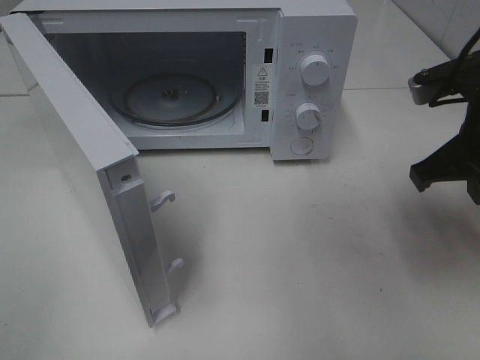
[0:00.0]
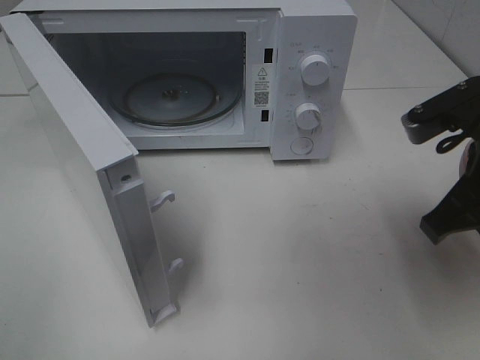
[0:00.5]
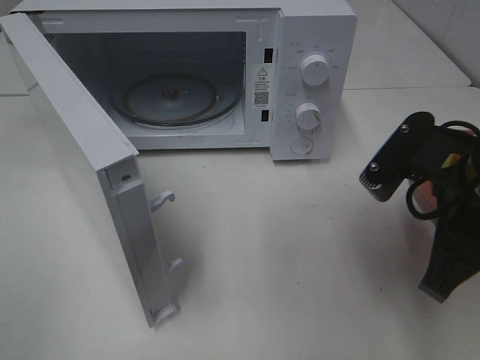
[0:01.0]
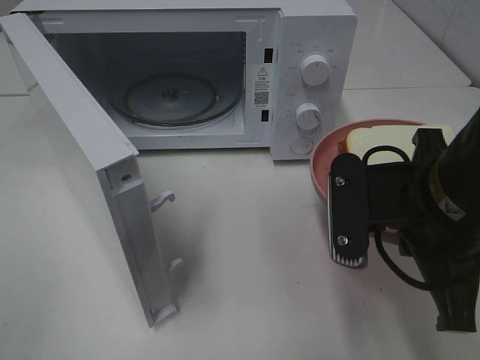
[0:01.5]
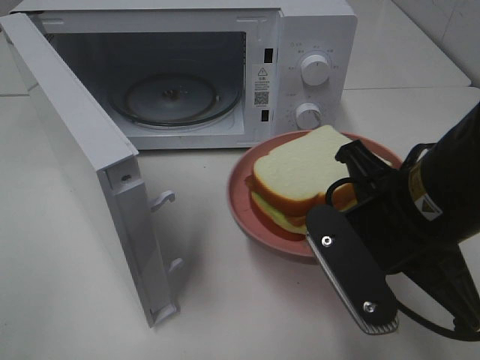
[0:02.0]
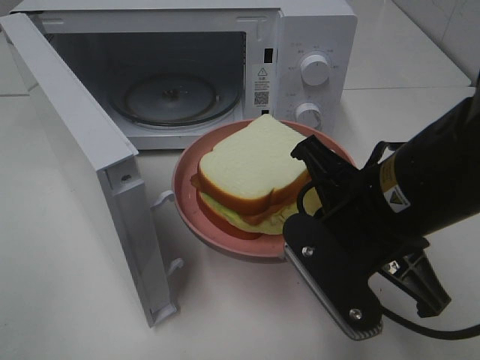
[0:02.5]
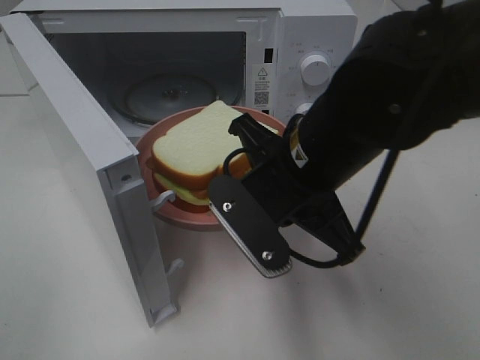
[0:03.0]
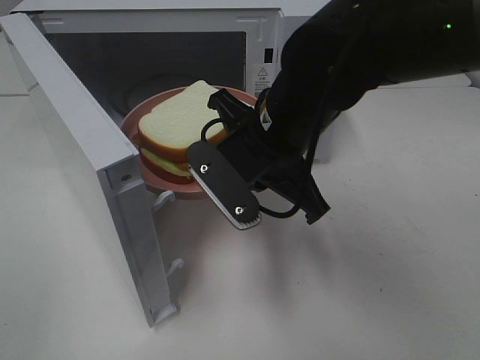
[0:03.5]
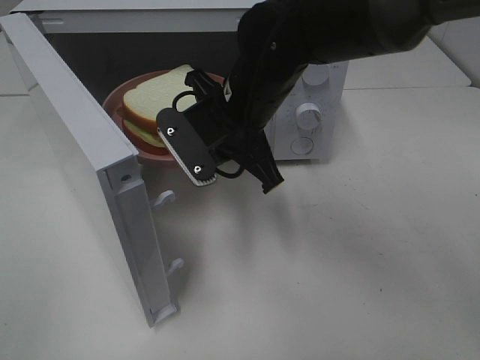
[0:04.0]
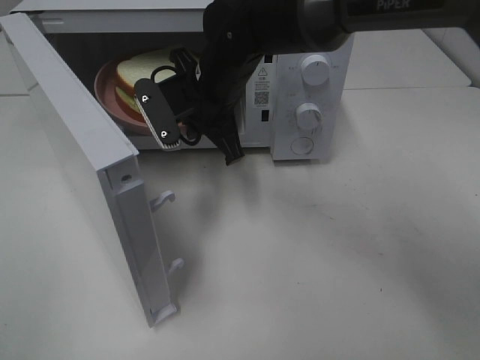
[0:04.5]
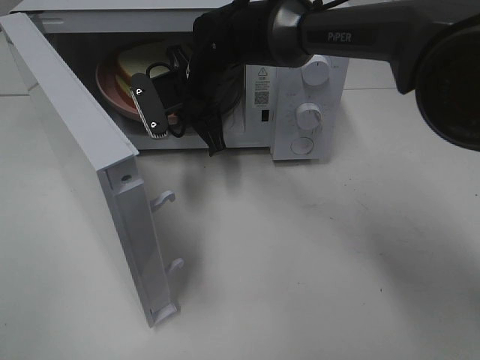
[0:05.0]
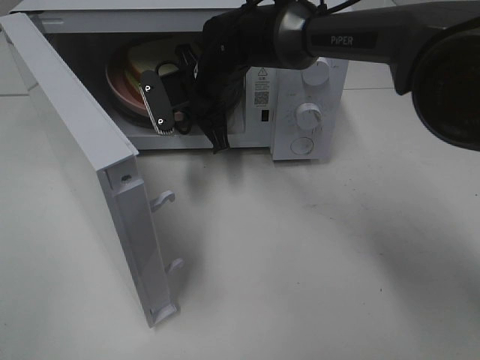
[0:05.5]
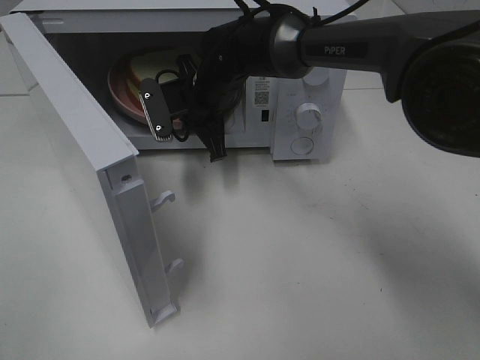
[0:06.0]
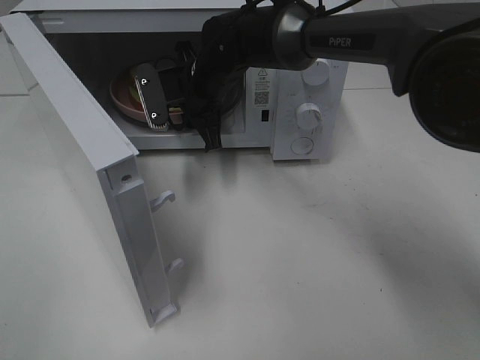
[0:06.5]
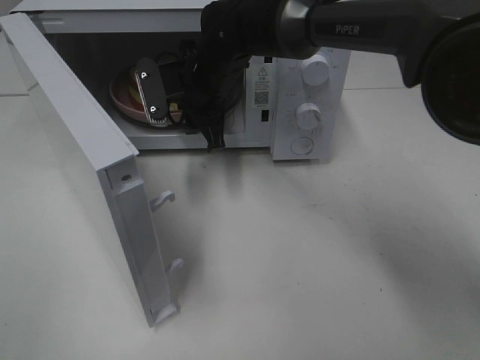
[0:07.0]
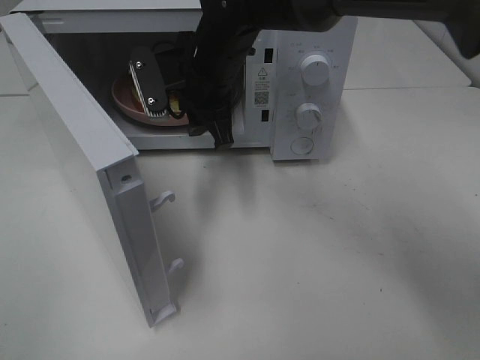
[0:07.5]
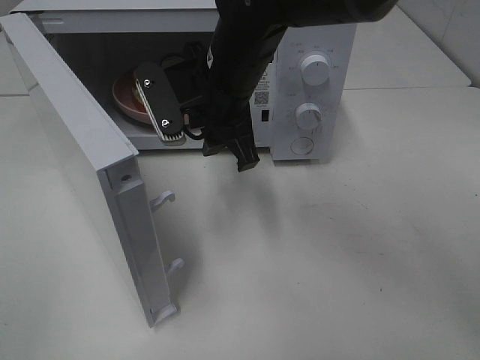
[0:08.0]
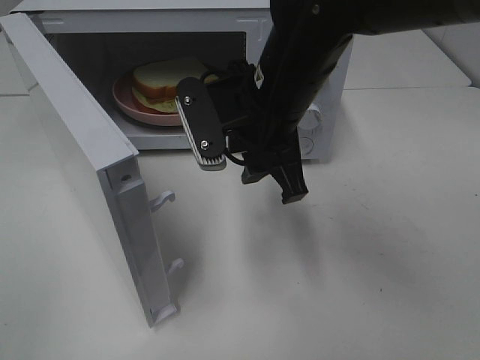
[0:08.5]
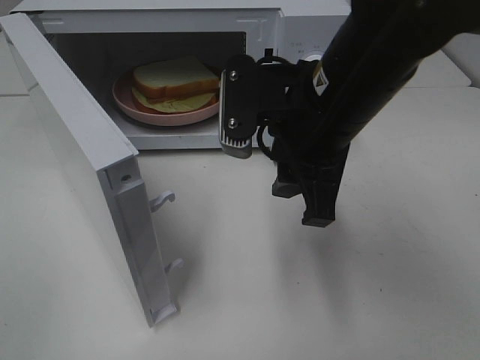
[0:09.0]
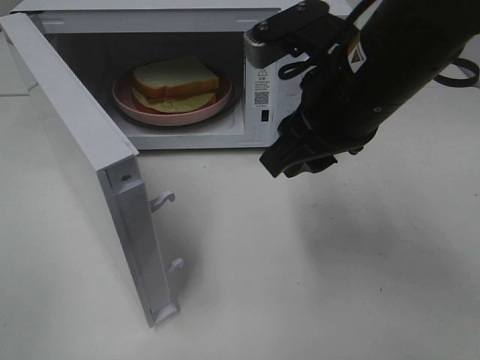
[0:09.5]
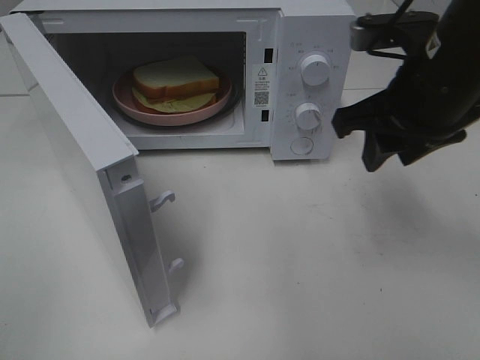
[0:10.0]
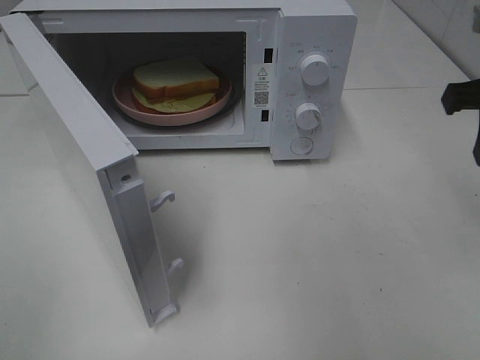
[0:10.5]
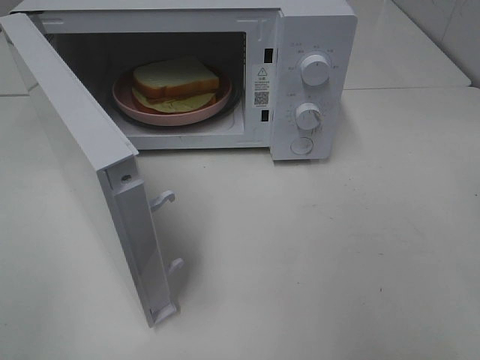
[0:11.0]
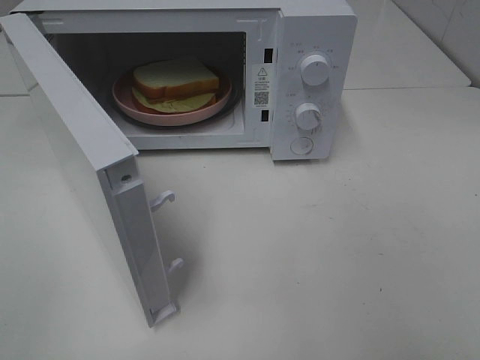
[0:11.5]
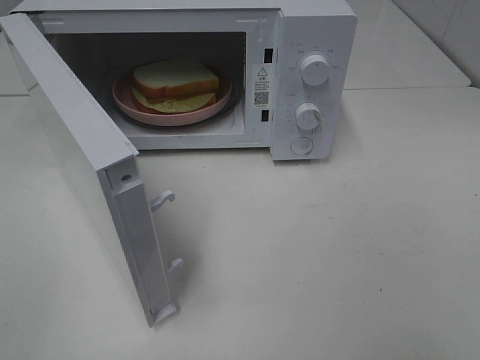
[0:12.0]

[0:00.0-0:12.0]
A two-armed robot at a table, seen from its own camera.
Task of the whole recording: Heat Sandwich.
Step, 0:00.0 to 0:07.0: Right hand: place the plate in the microwave.
0:00.0 to 0:02.0: The right gripper is displaced to the left and backward by some 15 cm.
0:02.0 to 0:04.0: The right gripper shifts roughly 20 cm forward and to the left.
0:04.0 to 0:06.0: The right gripper goes some 10 cm forward.
0:06.0 to 0:08.0: The right gripper goes about 10 cm backward and upward, and opens.
0:08.0 to 0:10.0: The right gripper heads to the right, covering about 20 cm.
0:10.0 to 0:12.0: The right gripper is displaced backward and to the right by some 30 cm.

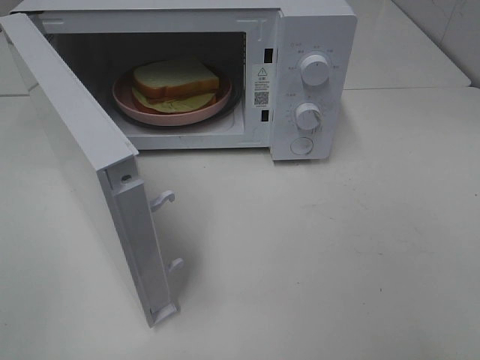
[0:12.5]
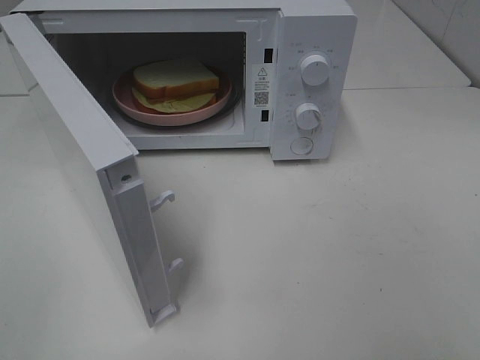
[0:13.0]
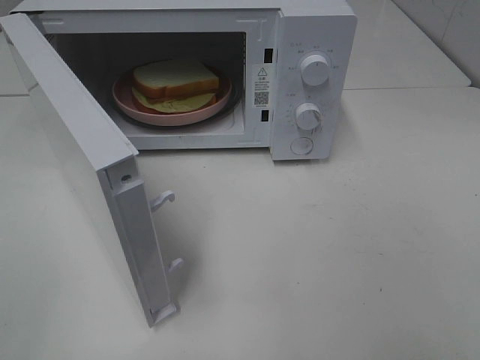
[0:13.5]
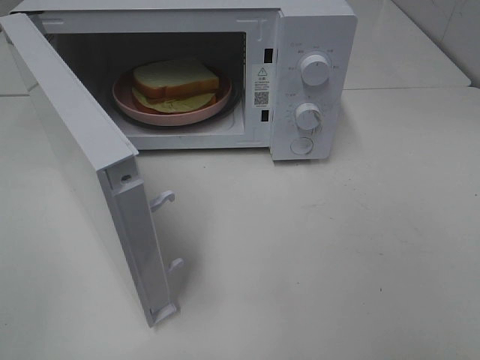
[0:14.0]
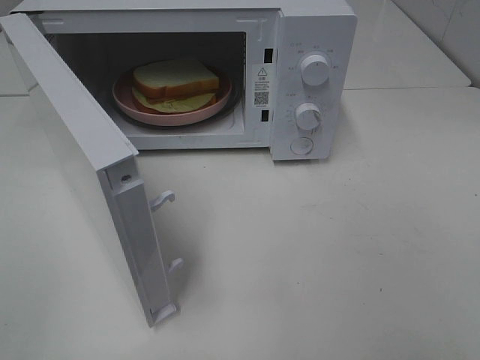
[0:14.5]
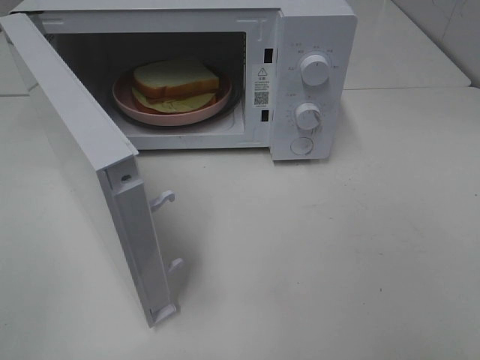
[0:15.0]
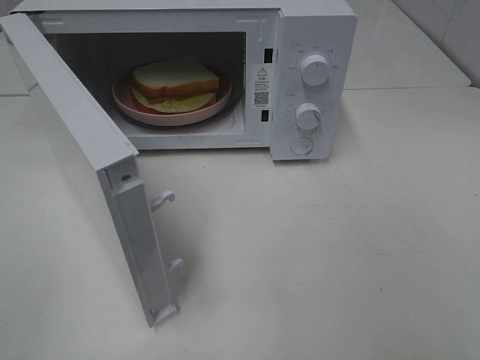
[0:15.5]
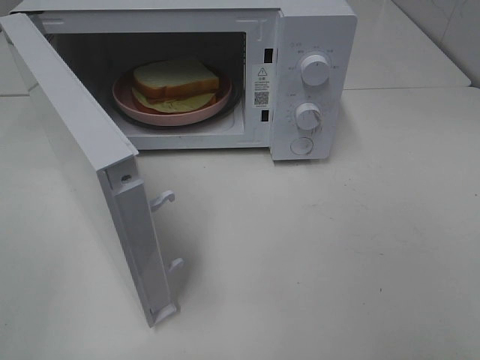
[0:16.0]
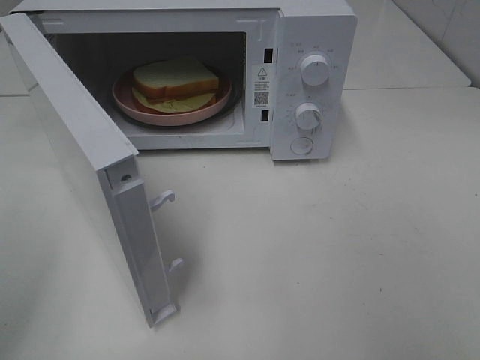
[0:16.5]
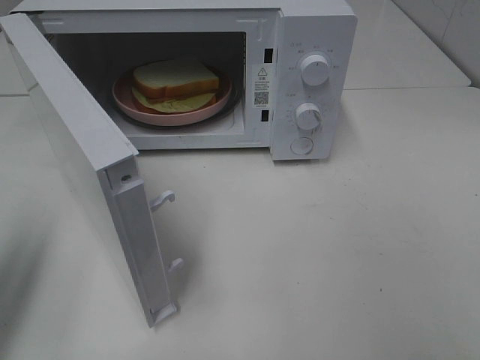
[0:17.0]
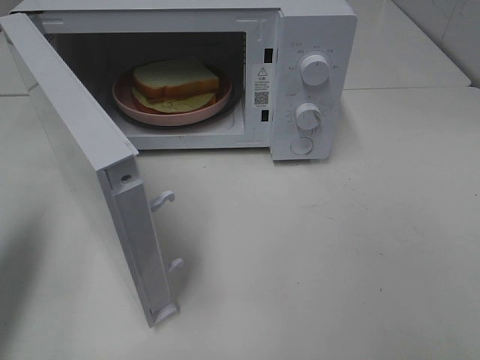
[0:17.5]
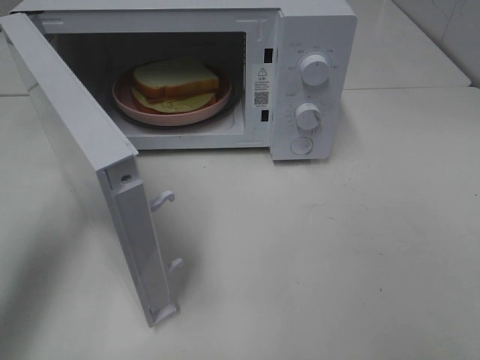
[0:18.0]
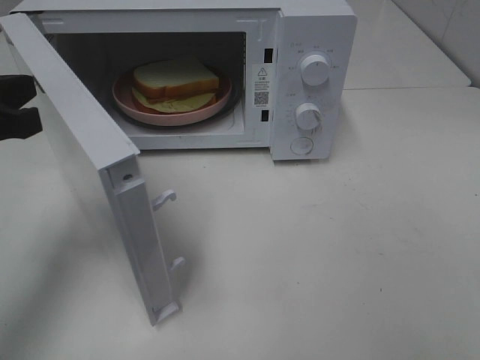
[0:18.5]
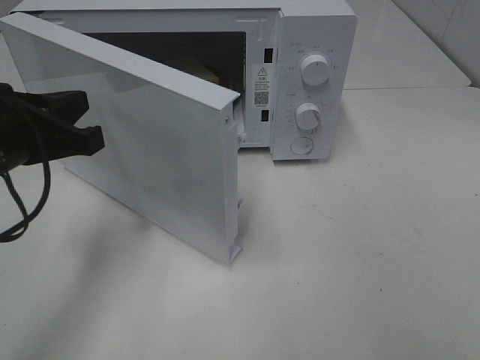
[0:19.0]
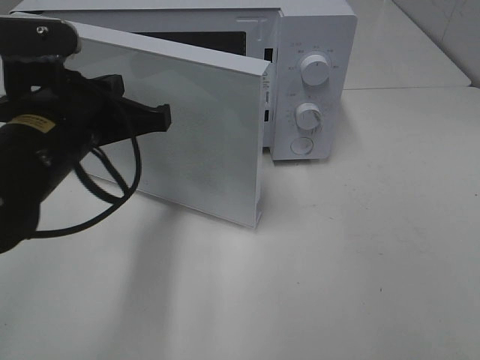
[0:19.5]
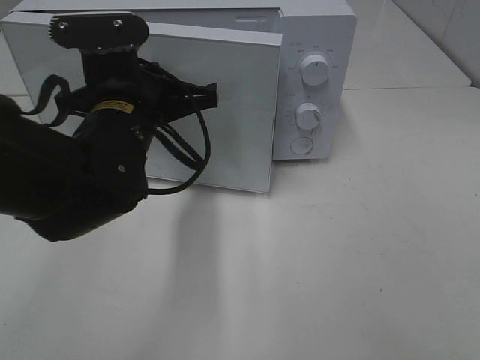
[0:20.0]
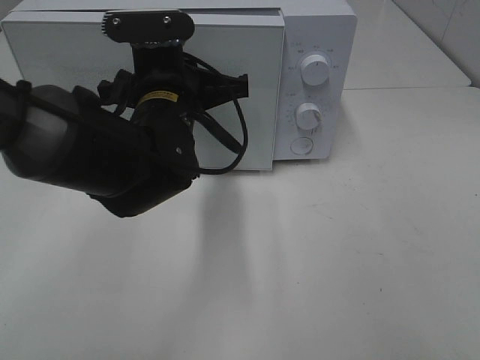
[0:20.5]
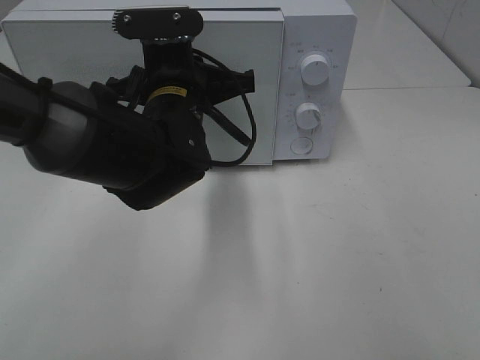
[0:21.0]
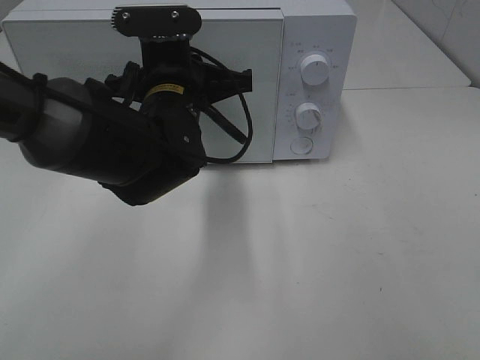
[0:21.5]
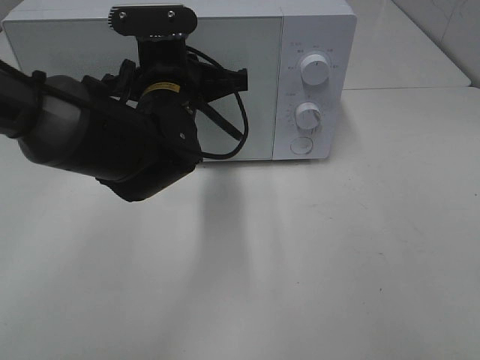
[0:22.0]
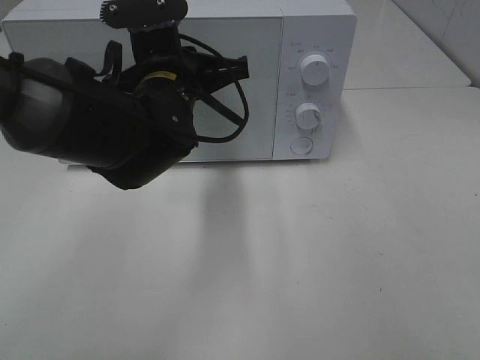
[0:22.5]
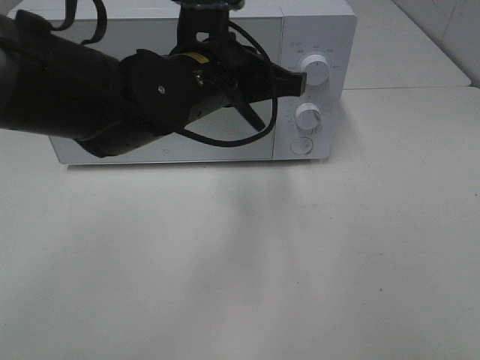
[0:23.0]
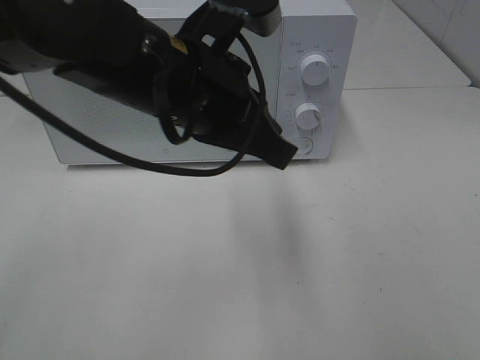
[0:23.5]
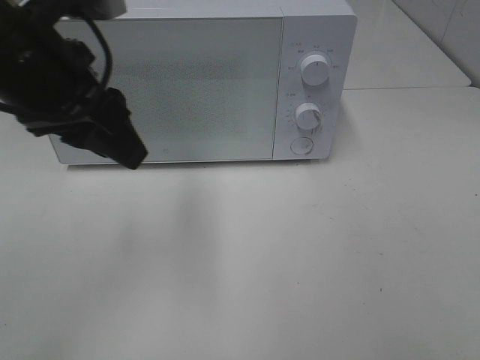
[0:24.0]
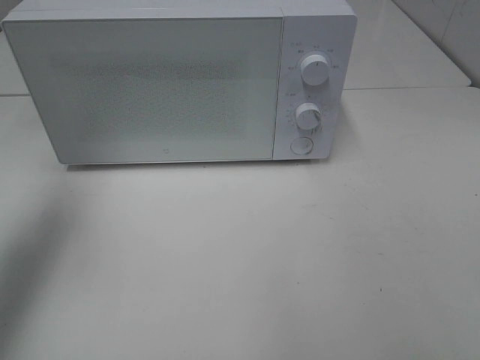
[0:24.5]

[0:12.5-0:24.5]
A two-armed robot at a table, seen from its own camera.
Task of the whole recording: Heat Sandwich.
Step, 0:12.5 to 0:22.5: Left hand: close the microwave door.
0:16.5 to 0:18.5: The left gripper shifts roughly 15 cm forward, to the right and downward, and closes.
0:18.5 to 0:20.5: The left gripper heads to the right and forward, covering roughly 20 cm.
0:20.5 to 0:22.5: There are only small adjustments of the grippers.
0:22.5 to 0:24.5: The left gripper shifts about 25 cm to the left and upward, and opens.

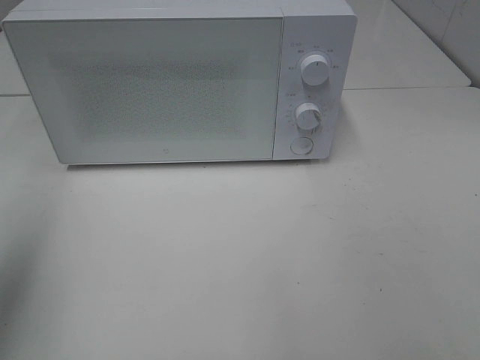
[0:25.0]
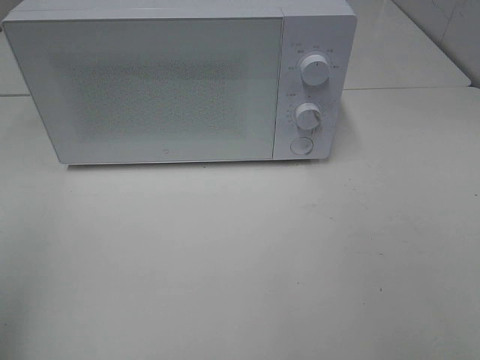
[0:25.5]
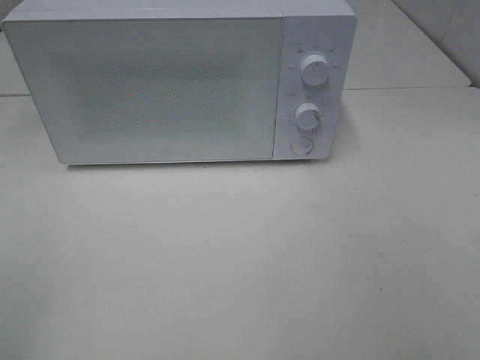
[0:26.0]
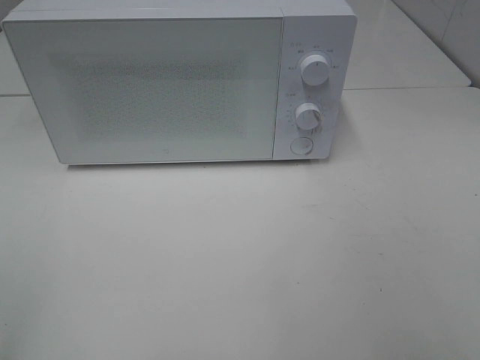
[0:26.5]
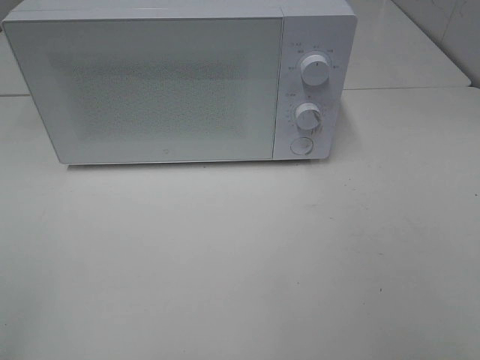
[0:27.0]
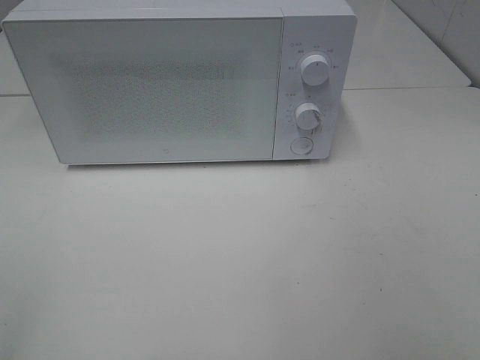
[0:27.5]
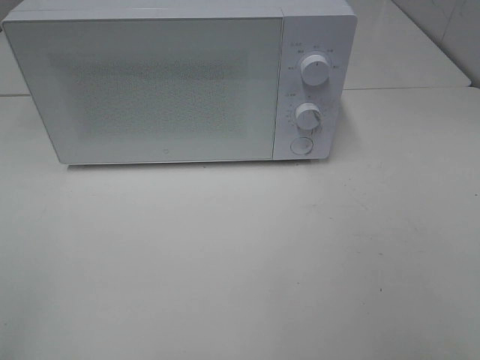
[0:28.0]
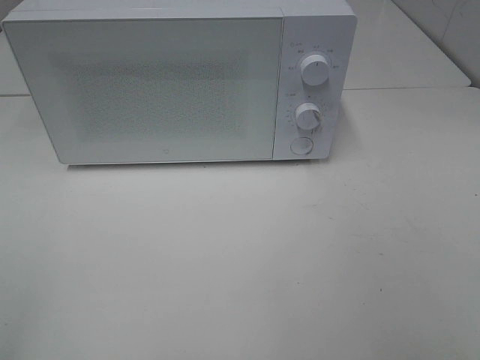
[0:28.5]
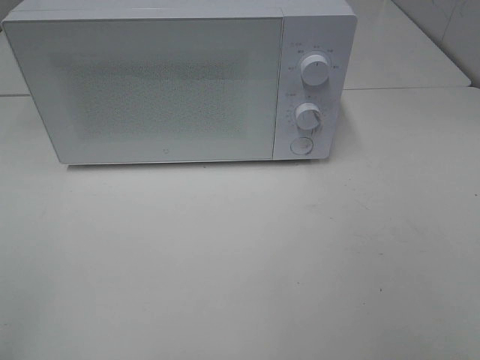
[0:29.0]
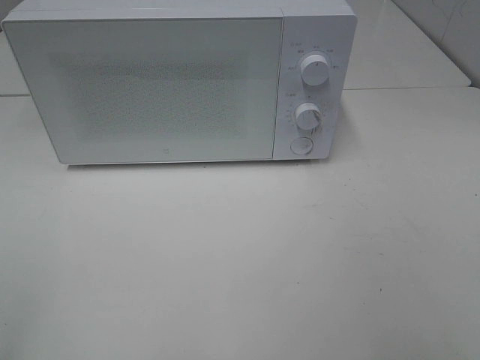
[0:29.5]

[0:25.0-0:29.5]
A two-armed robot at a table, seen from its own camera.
Task of the whole recording: Heat Sandwich.
0:25.0 to 0:27.0: The left gripper goes approximately 15 cm backward.
0:27.0 to 0:29.5: The two grippers keep their place.
